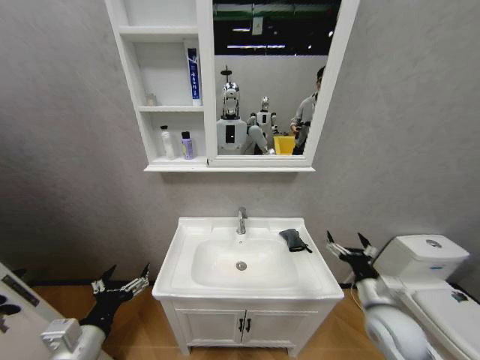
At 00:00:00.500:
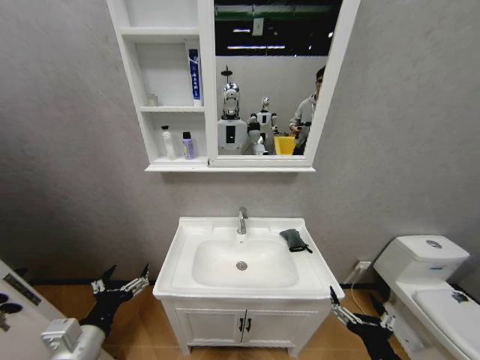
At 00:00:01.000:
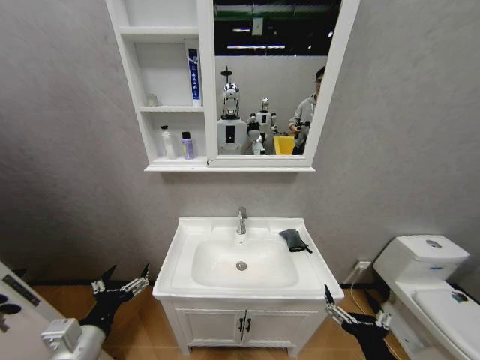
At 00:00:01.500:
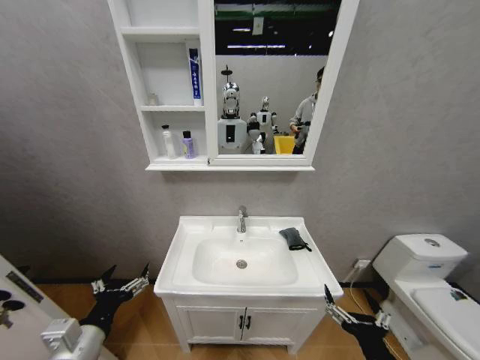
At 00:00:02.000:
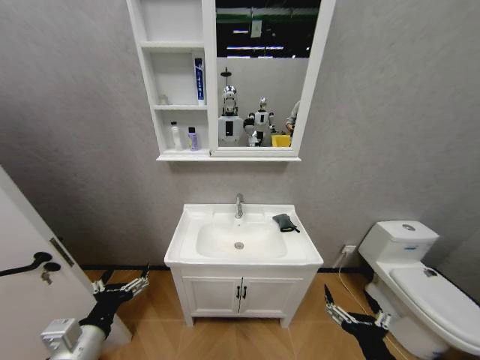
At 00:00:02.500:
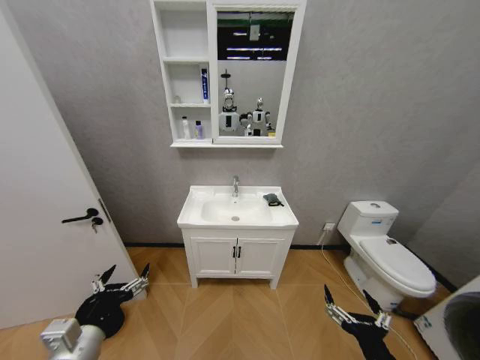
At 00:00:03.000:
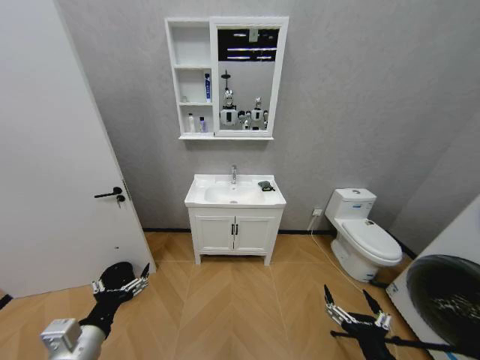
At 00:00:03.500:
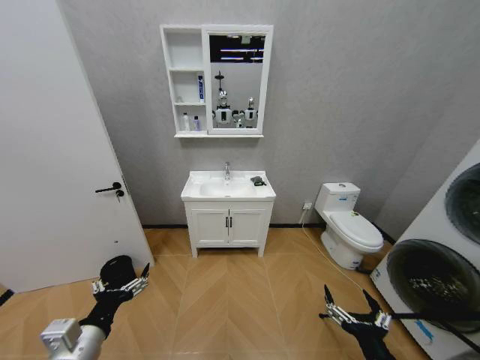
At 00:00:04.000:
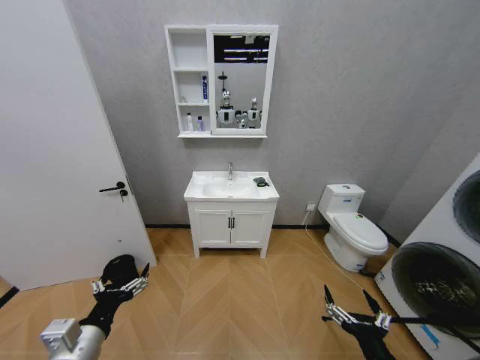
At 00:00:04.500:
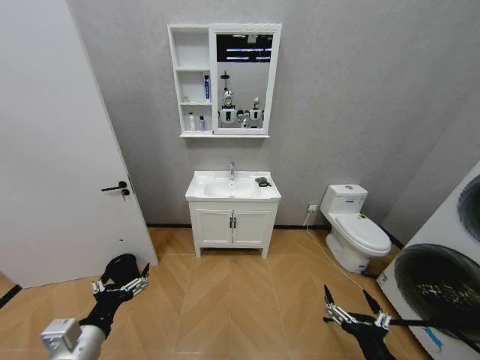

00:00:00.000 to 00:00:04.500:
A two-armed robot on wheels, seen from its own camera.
Task of the whole recording: Move facial cleanser and shampoo from washbasin to cabinet, then wipe washbasin with towel.
00:00:00.000 to 00:00:02.000: The right gripper goes roughly 20 cm backward and to the left.
